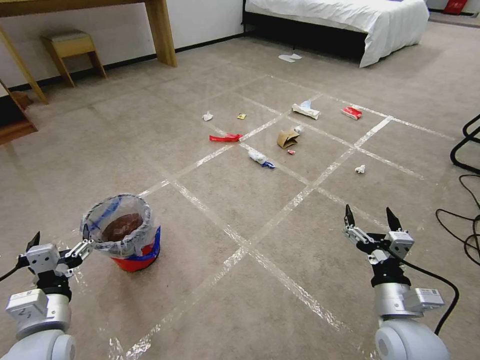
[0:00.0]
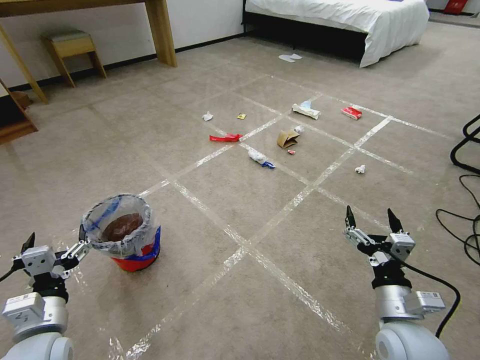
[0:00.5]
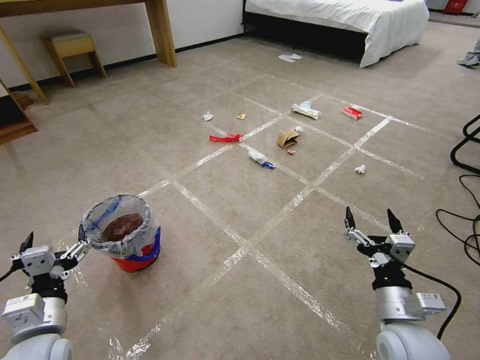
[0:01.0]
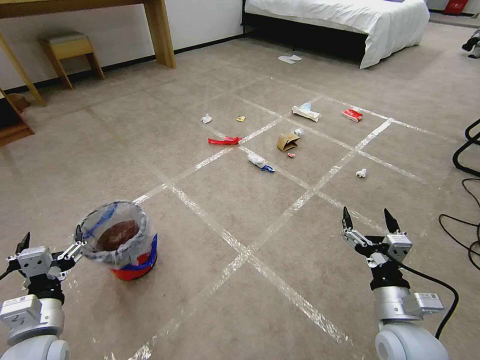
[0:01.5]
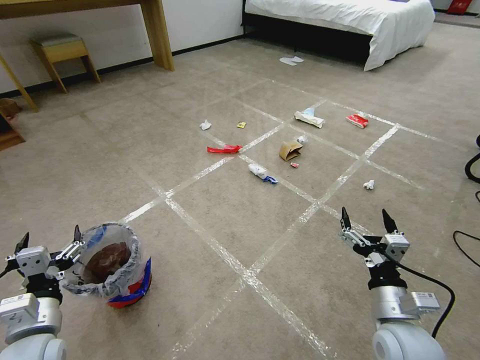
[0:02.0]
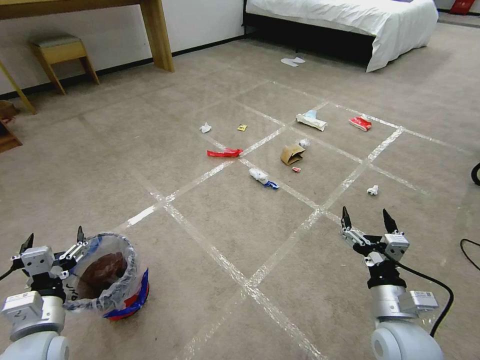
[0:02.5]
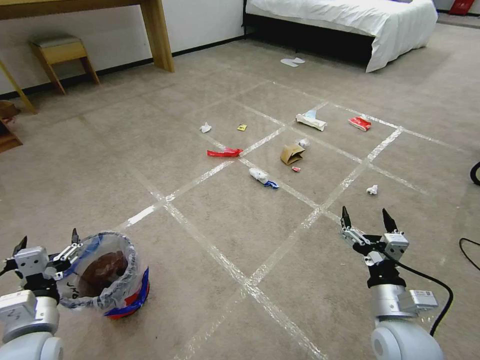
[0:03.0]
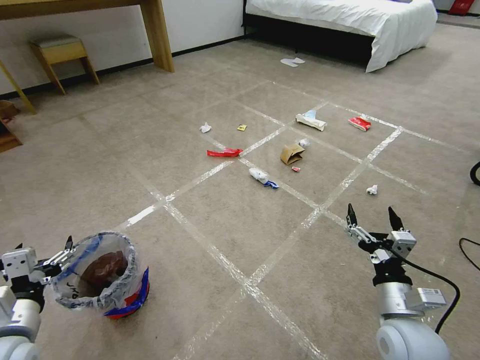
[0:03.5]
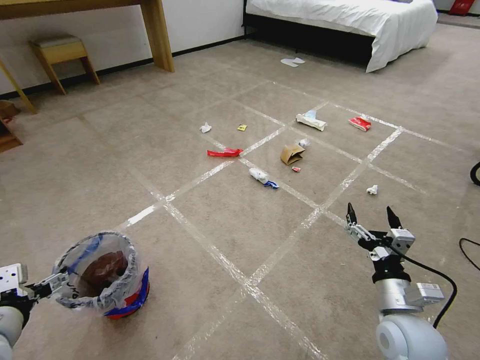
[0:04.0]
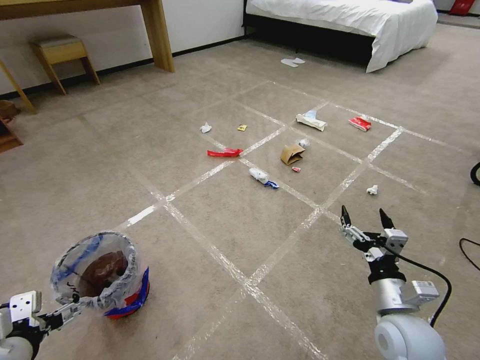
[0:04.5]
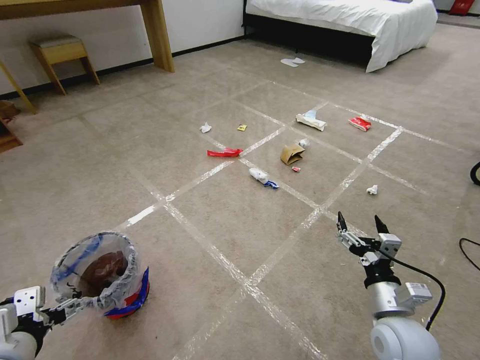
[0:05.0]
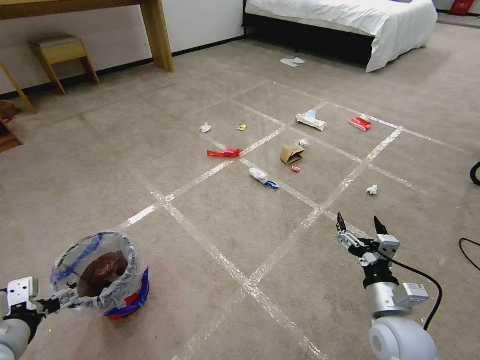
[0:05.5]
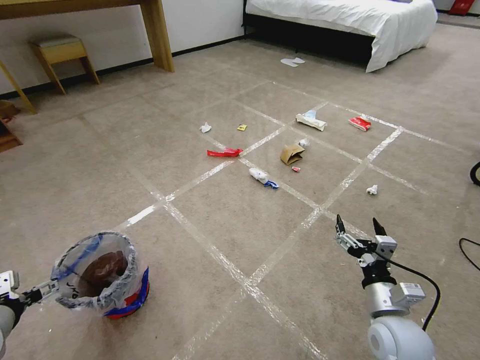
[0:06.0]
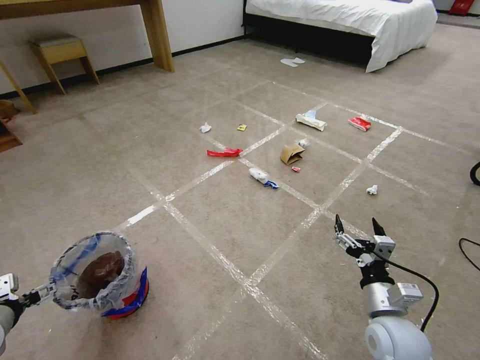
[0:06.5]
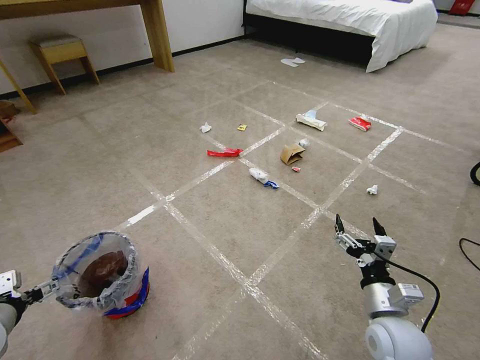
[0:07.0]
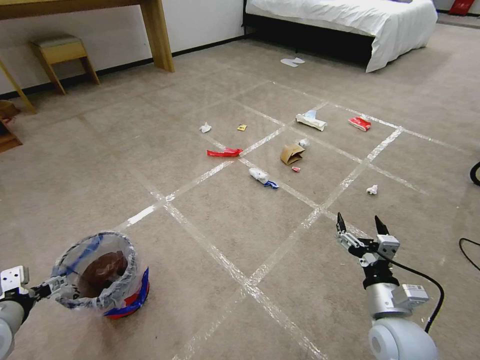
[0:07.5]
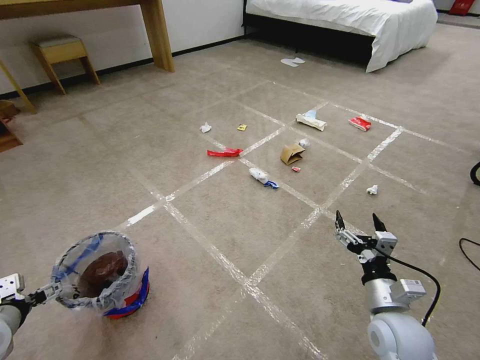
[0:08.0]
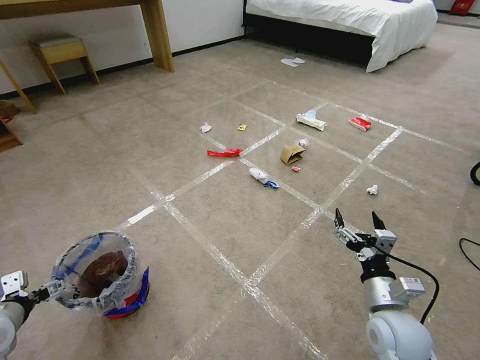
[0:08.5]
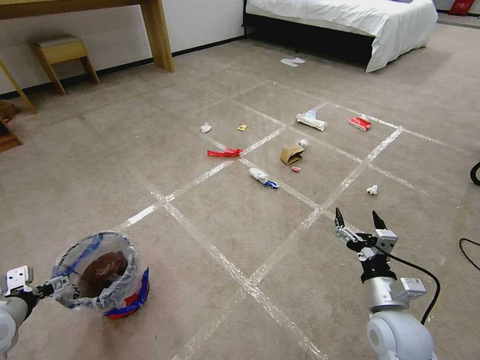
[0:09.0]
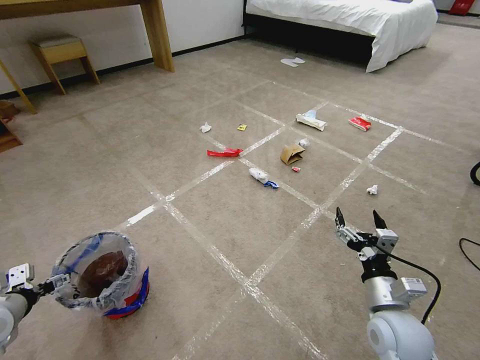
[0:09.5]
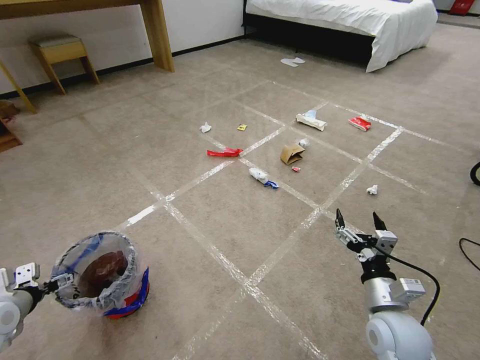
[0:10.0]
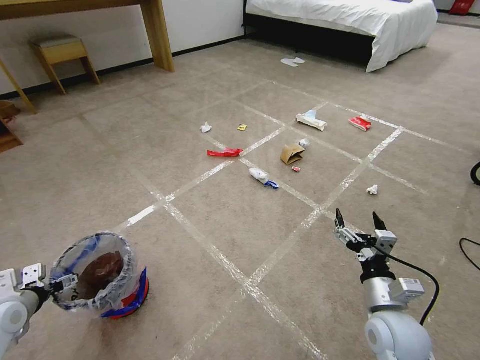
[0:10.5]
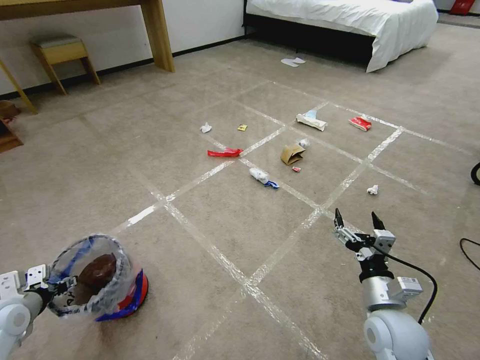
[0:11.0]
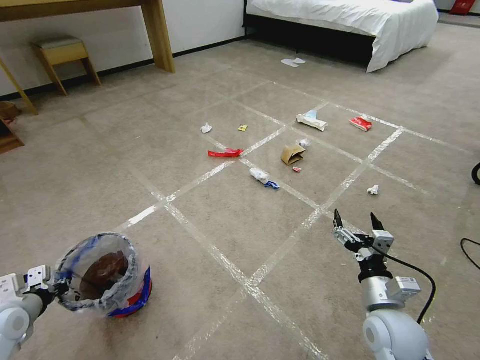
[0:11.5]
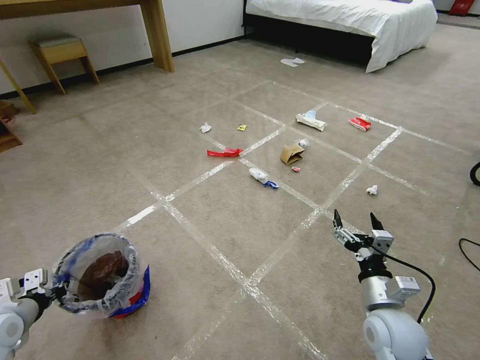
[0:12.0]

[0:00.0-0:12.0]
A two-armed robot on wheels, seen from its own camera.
Task of the whole recording: Pick up the trash bin and place the garbage on the floor into it.
0:02.0 to 0:04.0: The left gripper heads upward, covering about 5 cm.
0:04.0 to 0:06.0: The left gripper moves to the left, roughly 5 cm.
0:06.0 to 0:08.0: There are only small adjustments of the grippers.
0:08.0 to 0:10.0: The left gripper ends up roughly 5 cm from where it was.
0:10.0 to 0:12.0: The left gripper closes up.

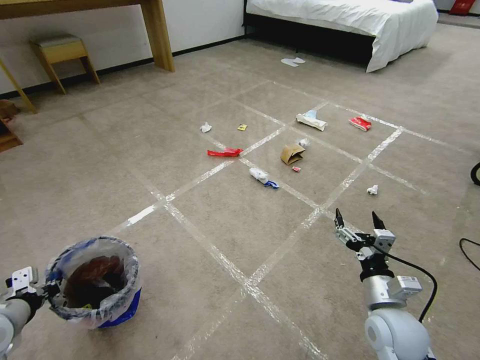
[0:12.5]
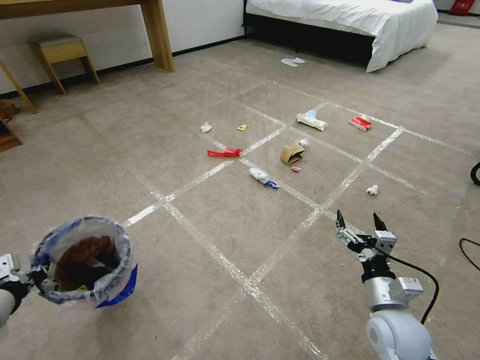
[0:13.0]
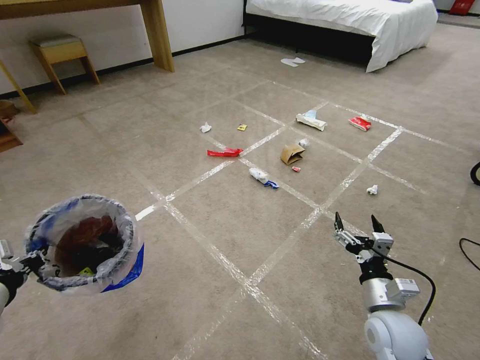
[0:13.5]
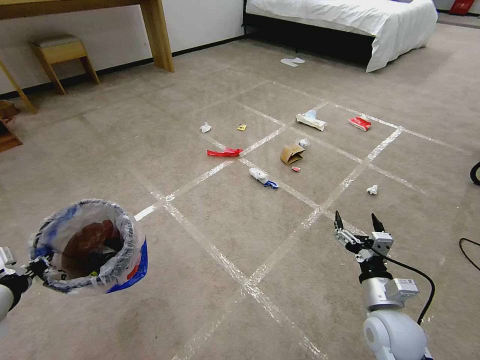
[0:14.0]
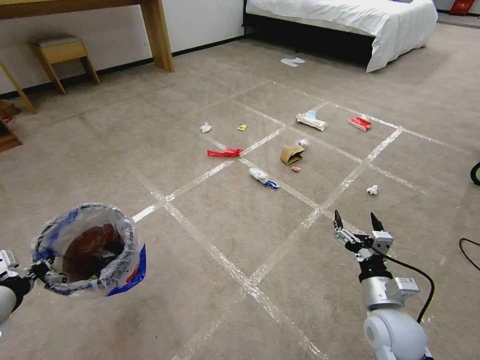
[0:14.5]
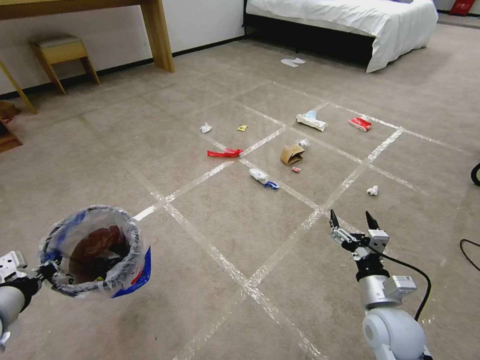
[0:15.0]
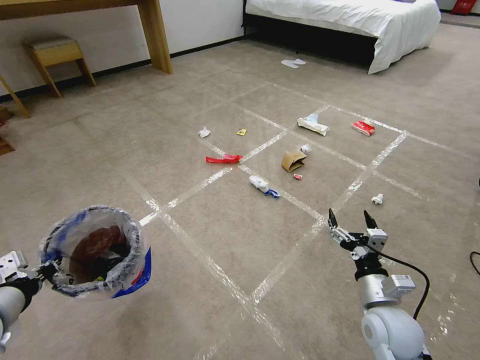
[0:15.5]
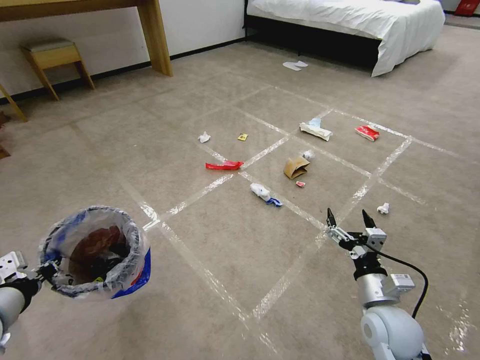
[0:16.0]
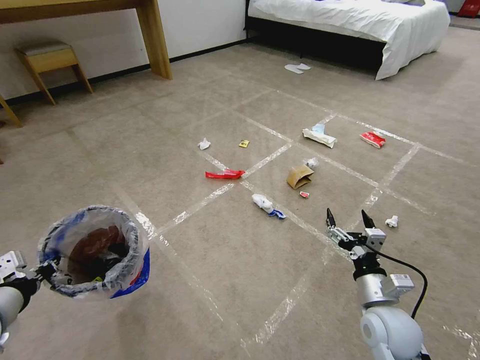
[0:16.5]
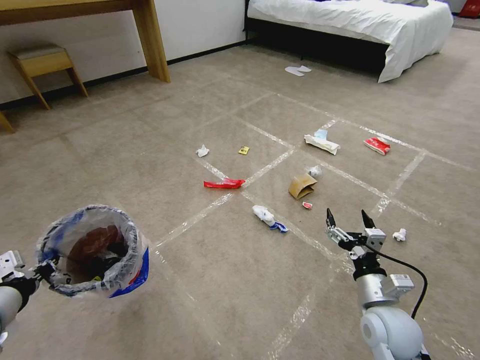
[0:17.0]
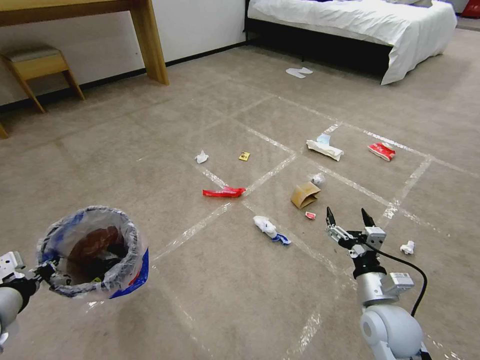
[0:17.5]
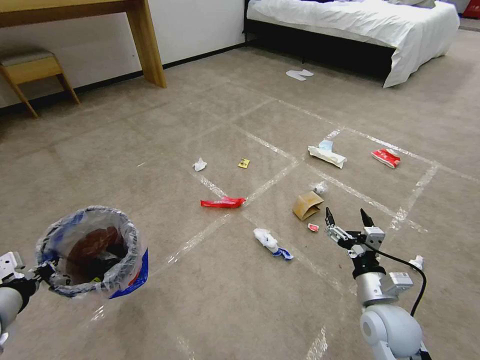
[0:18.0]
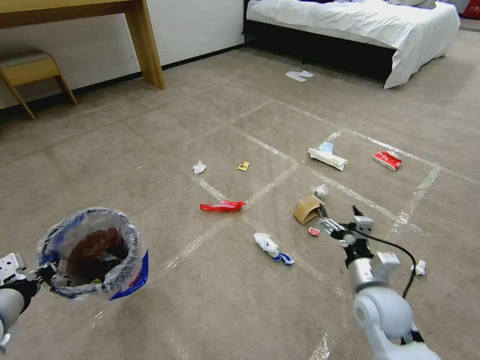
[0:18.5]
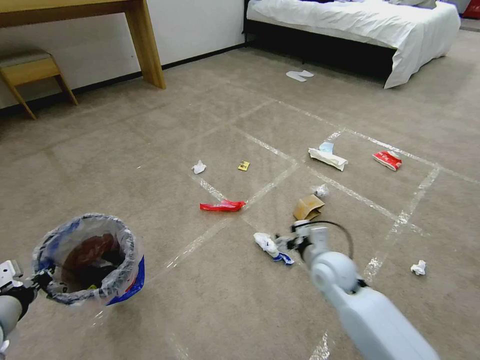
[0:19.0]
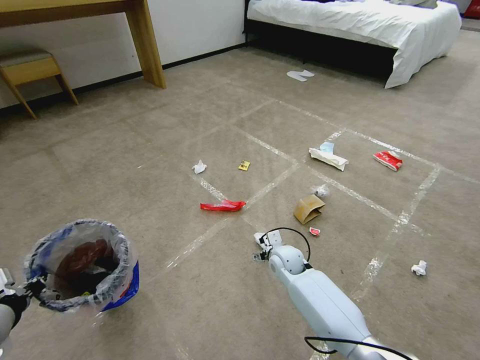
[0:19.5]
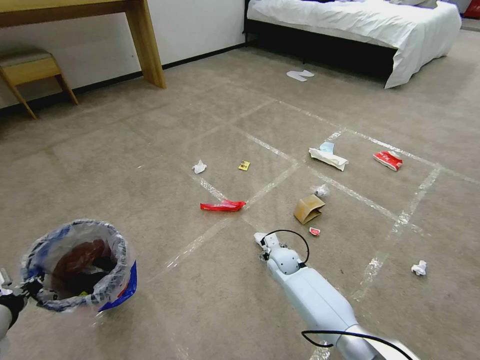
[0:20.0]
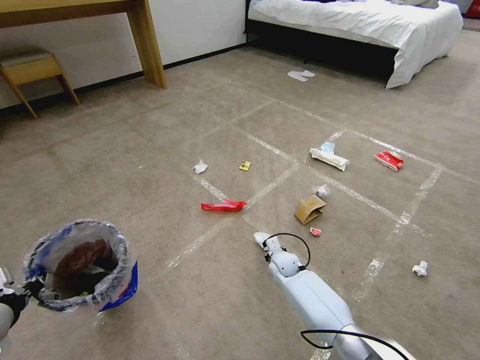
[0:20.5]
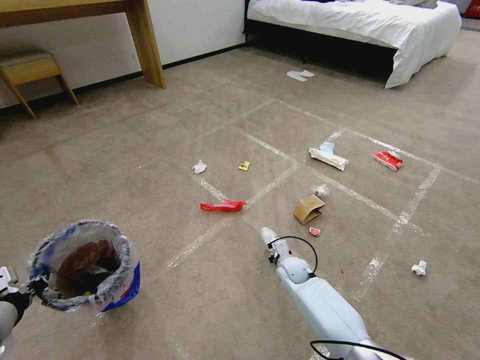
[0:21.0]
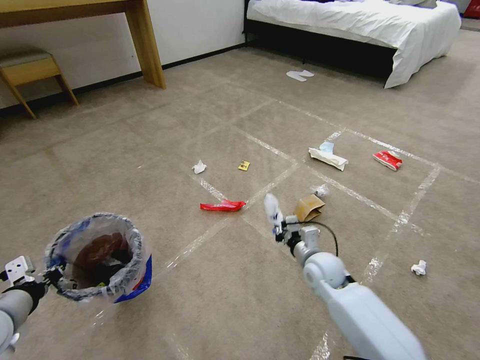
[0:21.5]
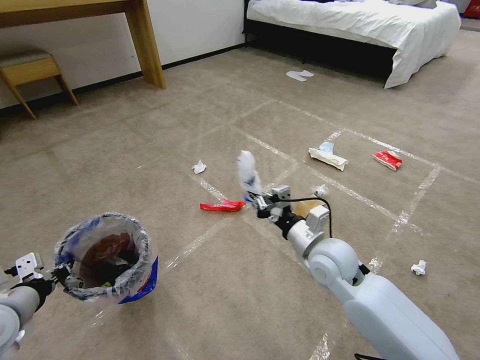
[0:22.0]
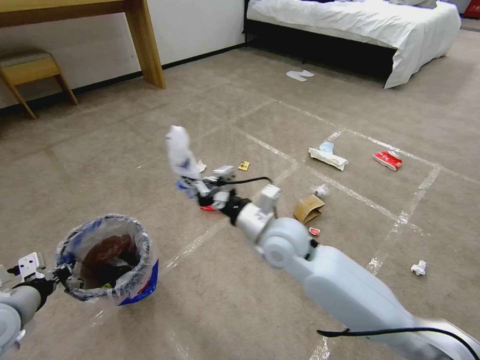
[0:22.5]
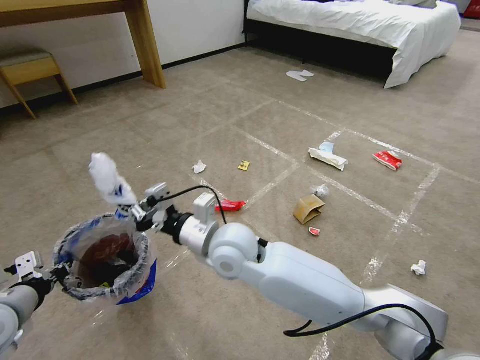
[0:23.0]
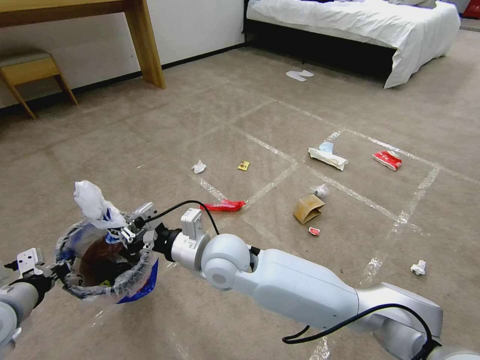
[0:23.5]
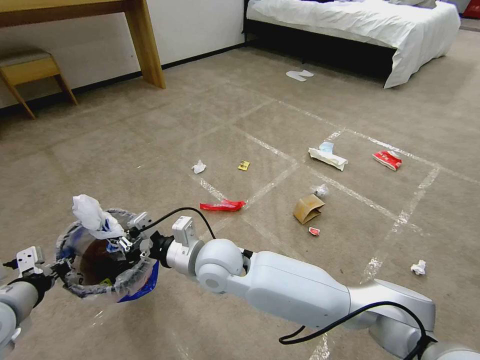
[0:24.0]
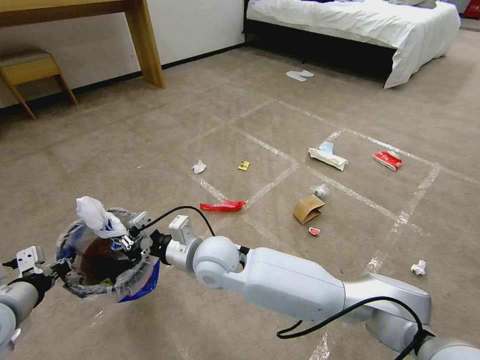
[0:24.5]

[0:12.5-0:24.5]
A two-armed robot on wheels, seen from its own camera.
Task of the whole recording: Pick up the trash bin and place the garbage on the floor into it.
0:12.5 to 0:14.5: The left gripper goes approximately 5 cm upward.
0:18.5 to 0:20.5: The right gripper goes some 30 cm forward, downward and to the left, and closes.
0:20.5 to 0:22.5: The right gripper is displaced upward by about 30 cm.
0:22.5 to 0:24.5: The right gripper shifts approximately 15 cm to the left.

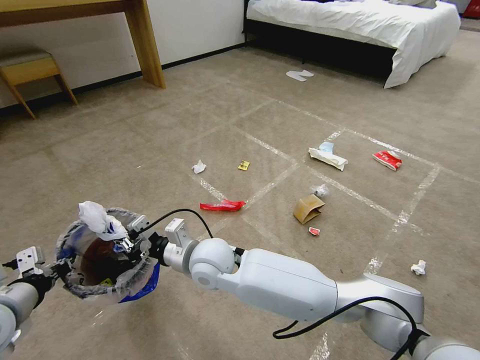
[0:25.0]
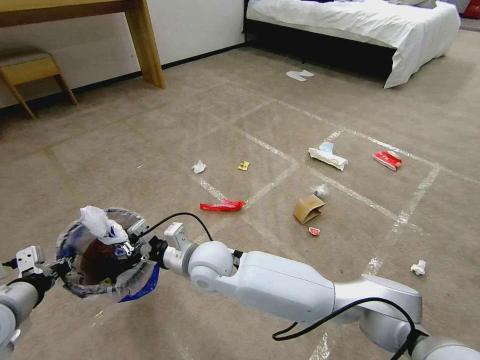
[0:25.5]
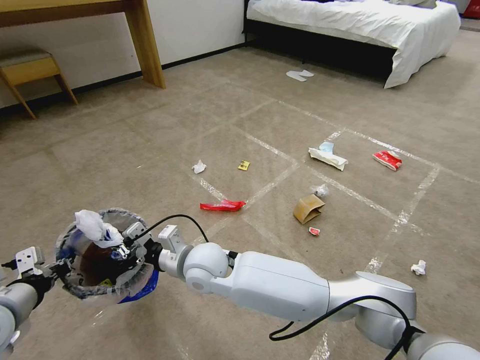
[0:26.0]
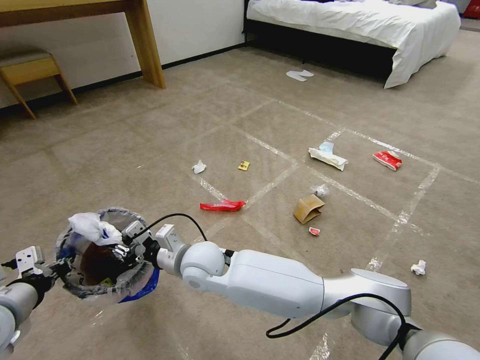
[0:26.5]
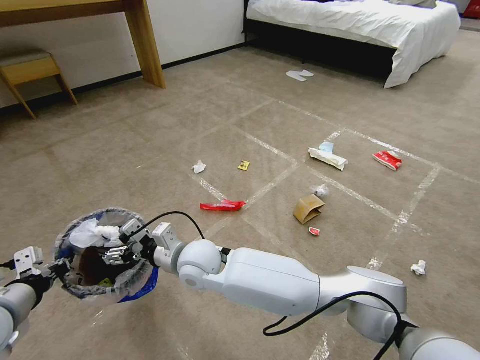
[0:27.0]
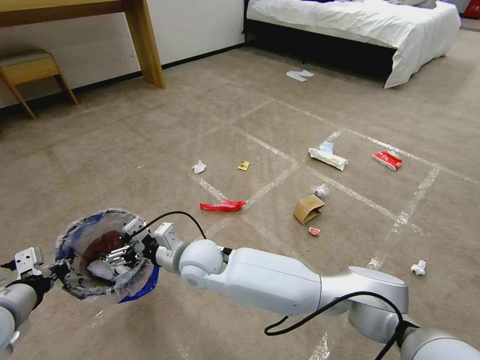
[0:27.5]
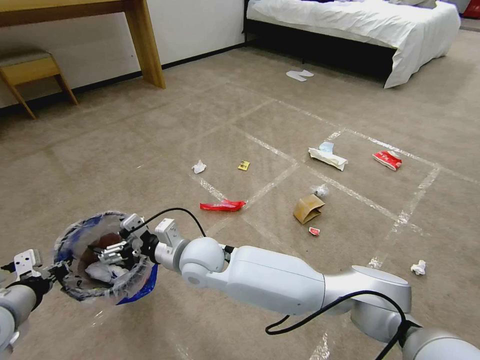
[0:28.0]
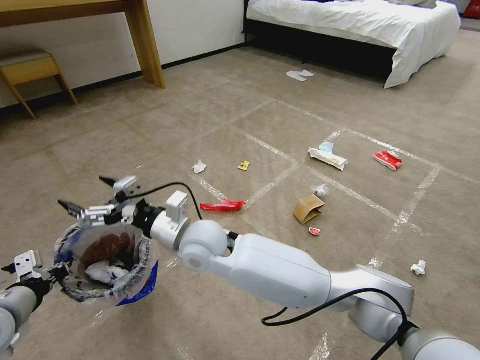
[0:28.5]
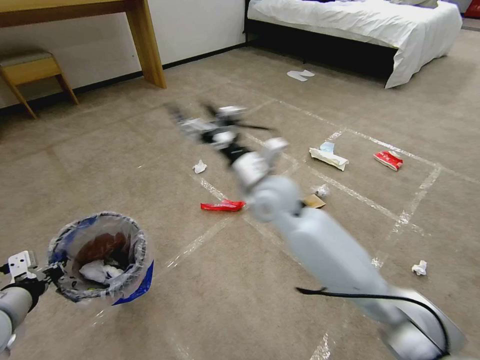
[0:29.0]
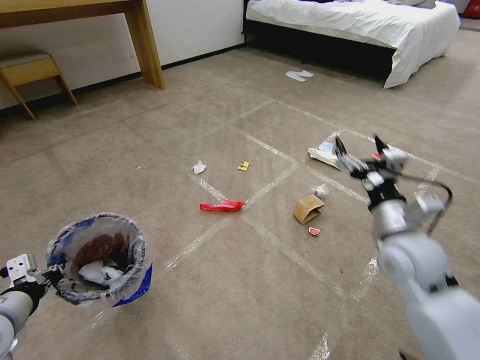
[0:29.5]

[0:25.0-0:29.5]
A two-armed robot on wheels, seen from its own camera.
Task of the whole recording: Pick up the trash bin and place the garbage on the floor into it.
0:25.0 to 0:27.0: The right gripper opens.
0:27.0 to 0:29.5: The right gripper moves to the right, some 40 cm.
